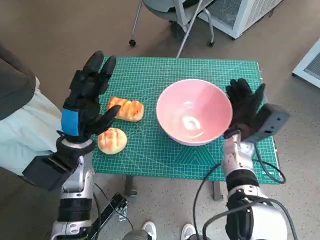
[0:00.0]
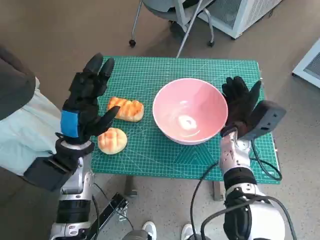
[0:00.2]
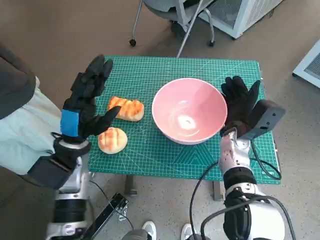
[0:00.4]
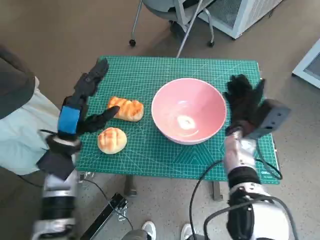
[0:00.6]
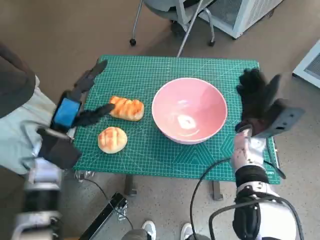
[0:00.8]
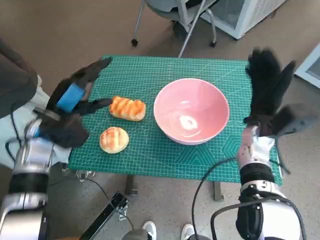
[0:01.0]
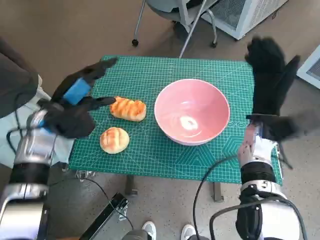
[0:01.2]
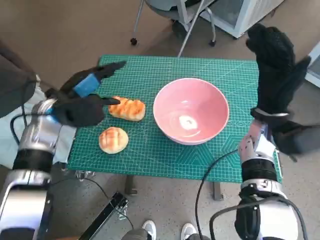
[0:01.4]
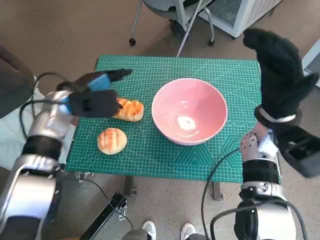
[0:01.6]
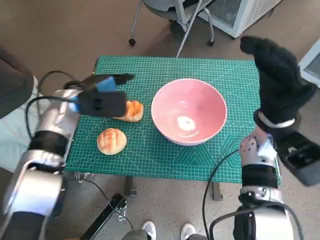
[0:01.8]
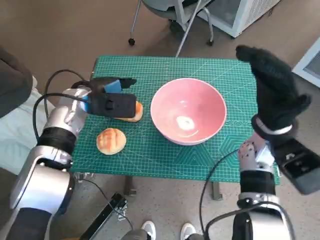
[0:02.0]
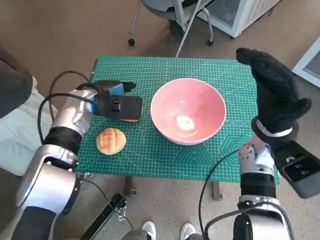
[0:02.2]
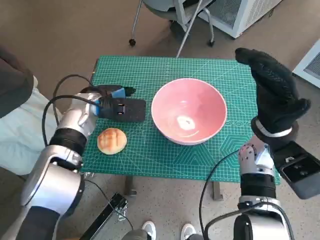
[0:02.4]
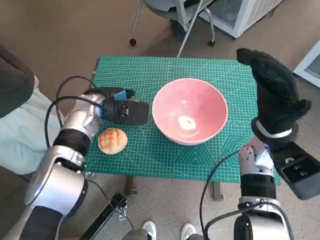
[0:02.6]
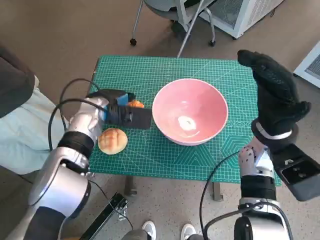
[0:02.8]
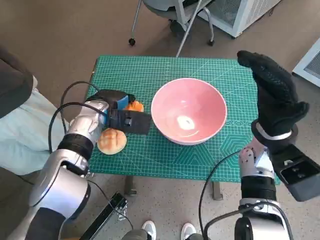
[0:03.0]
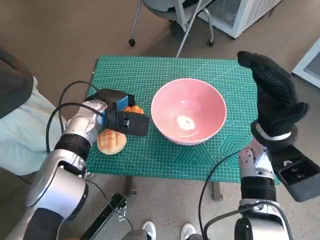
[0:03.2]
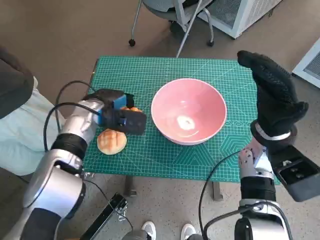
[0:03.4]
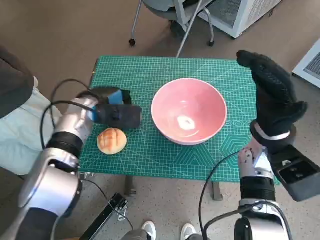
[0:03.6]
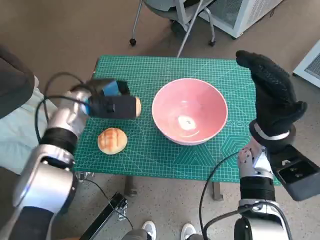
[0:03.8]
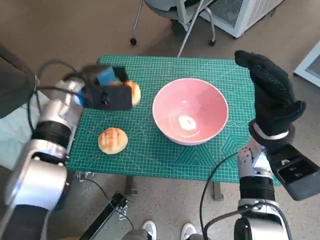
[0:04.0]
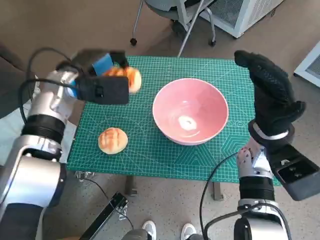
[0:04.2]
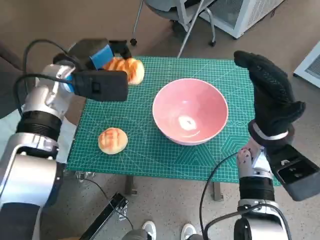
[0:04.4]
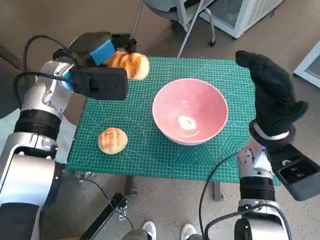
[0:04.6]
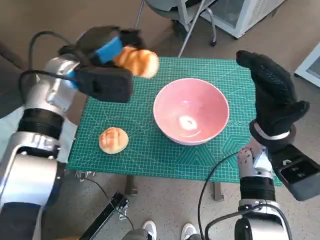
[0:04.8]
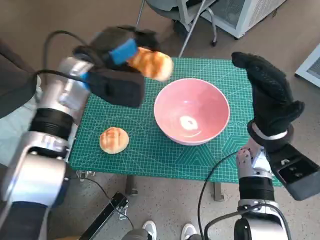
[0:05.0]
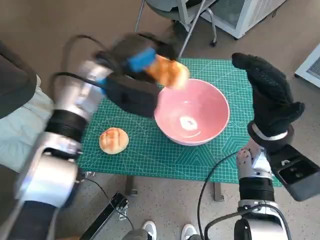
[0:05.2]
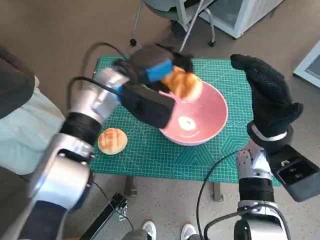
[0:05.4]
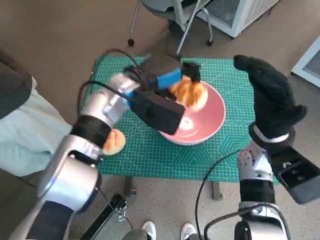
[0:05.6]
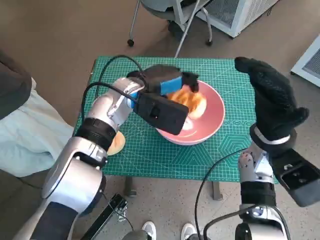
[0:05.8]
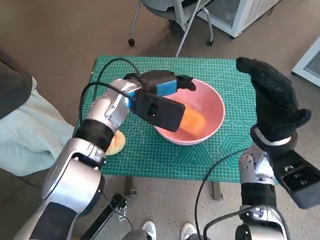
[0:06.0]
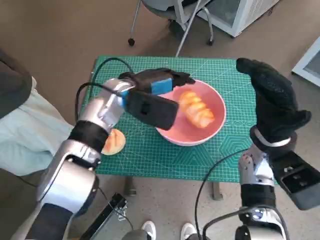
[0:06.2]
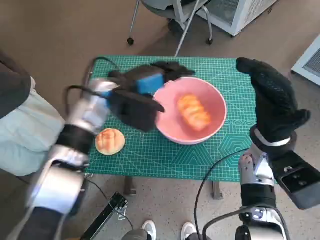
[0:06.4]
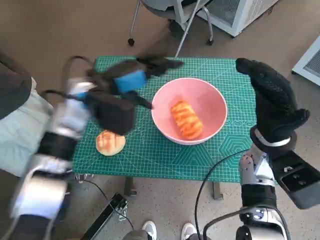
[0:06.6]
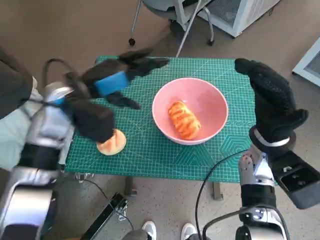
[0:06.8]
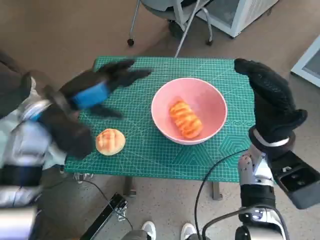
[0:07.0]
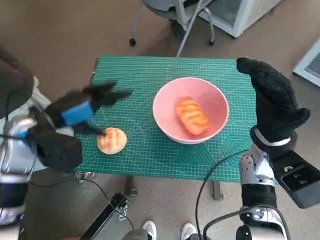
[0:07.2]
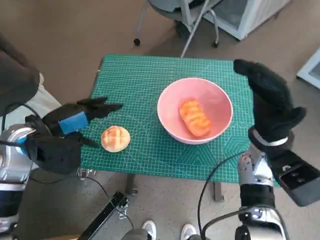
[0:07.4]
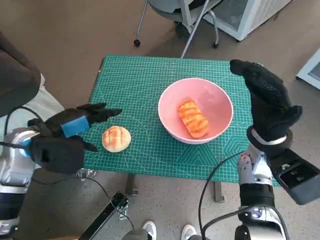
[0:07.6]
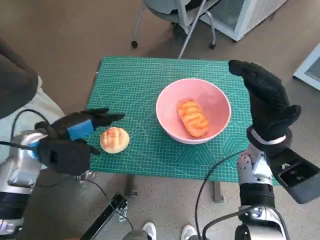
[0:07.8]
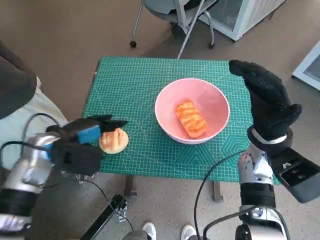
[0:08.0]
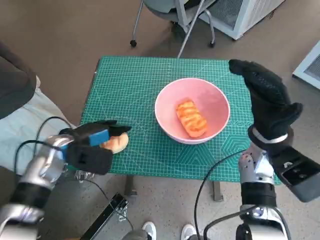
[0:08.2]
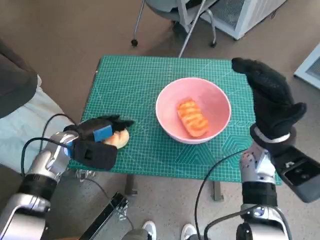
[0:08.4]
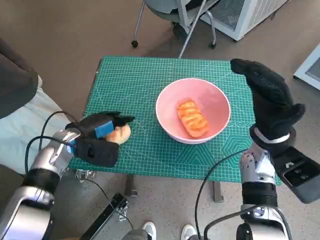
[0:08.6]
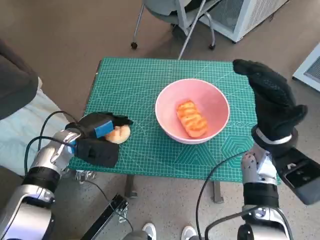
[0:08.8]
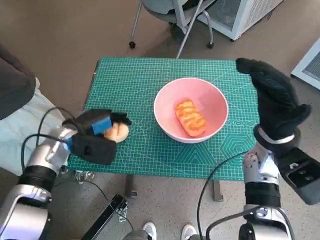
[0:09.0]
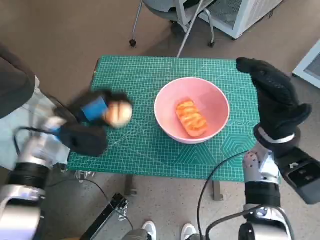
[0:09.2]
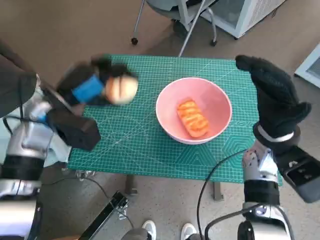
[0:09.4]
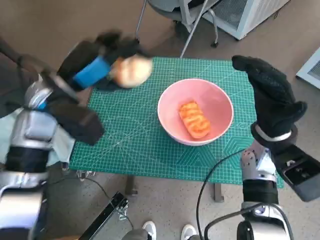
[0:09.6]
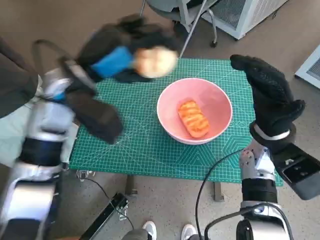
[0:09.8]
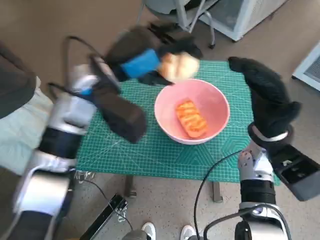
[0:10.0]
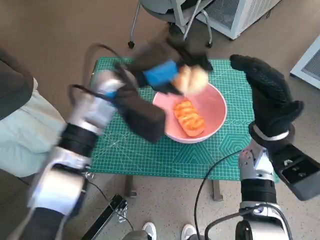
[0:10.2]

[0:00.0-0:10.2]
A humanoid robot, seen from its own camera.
Task of the whole recording: Push the bowl to the center of the table and put the bread into the bowl.
Step, 0:00.8 to 0:03.2: Grasp the long bread with left hand.
Step, 0:03.6 to 0:05.8: Place the long bread in pink bowl with left hand.
Step, 0:06.0 to 0:08.8: Grasp the round bread with left hand.
0:00.0 to 0:01.4: The left hand heads forward, covering approximately 5 cm; the right hand travels upward by roughly 10 cm.
0:01.4 to 0:03.0: The left hand is displaced to the right by about 5 cm.
0:03.0 to 0:04.4: The left hand is displaced upward by approximately 10 cm.
0:04.4 to 0:05.8: The left hand is displaced to the right by roughly 10 cm.
0:05.8 to 0:07.2: The left hand goes about 20 cm to the left and backward.
0:07.2 to 0:08.8: The left hand moves downward, roughly 10 cm.
0:08.8 to 0:10.2: The left hand goes approximately 20 cm upward and to the right.

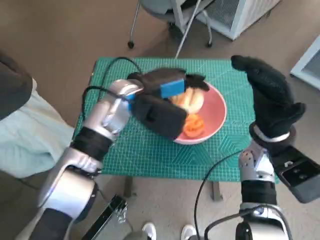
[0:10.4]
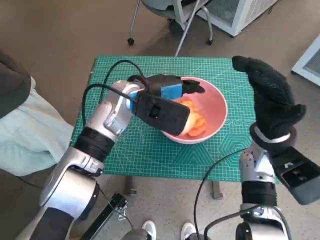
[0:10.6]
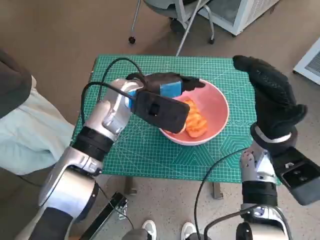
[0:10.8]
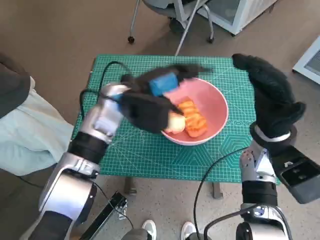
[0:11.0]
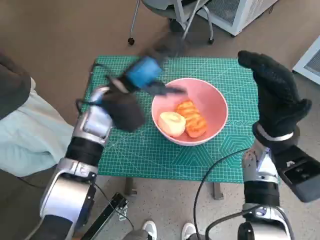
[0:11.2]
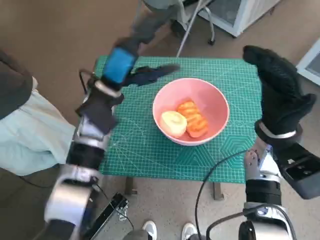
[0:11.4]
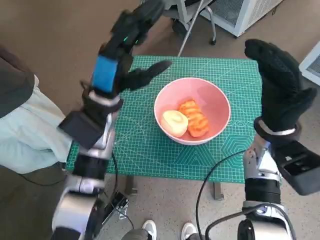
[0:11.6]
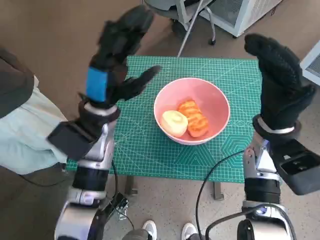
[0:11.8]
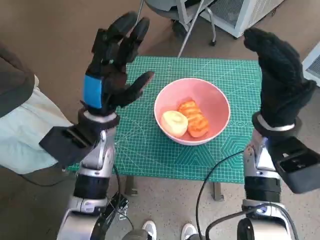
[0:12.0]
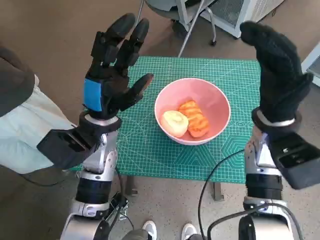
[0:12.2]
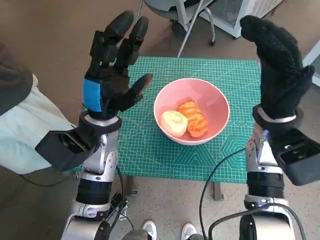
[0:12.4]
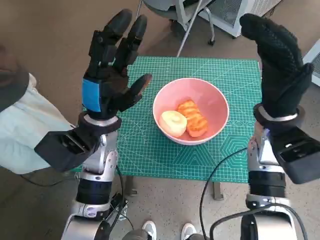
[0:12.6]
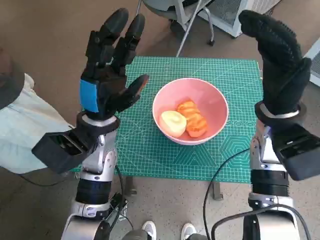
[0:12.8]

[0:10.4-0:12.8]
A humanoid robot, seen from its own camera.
Task of the whole recording: Push the bowl to the center of the table and put the bread into the bowl.
0:10.4 to 0:11.6: The left hand shifts by some 5 cm.

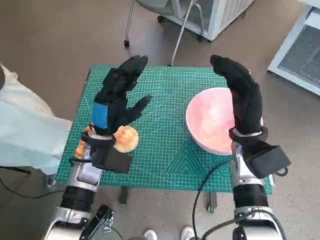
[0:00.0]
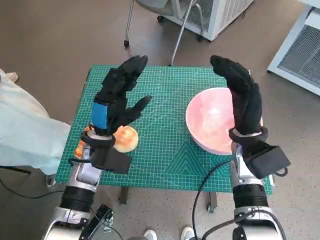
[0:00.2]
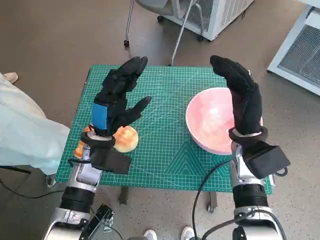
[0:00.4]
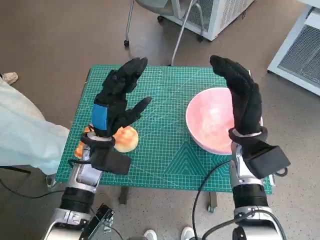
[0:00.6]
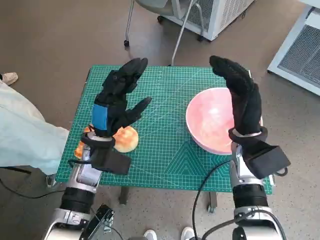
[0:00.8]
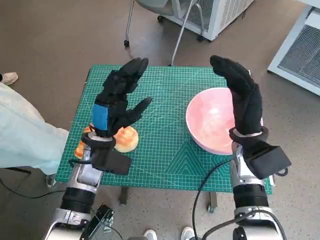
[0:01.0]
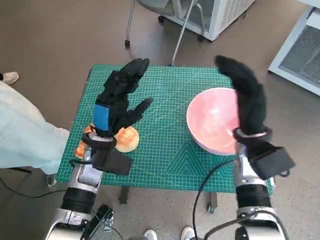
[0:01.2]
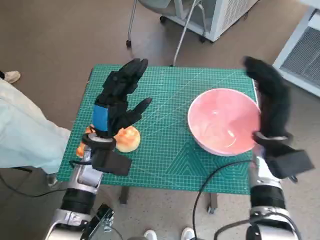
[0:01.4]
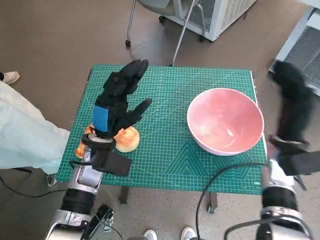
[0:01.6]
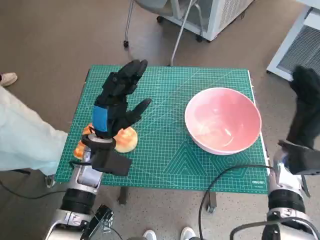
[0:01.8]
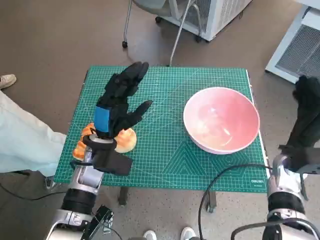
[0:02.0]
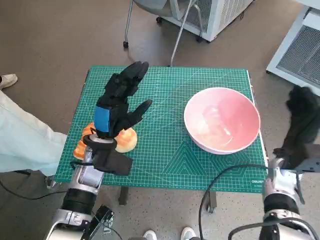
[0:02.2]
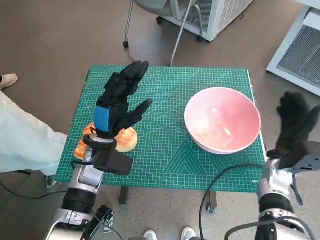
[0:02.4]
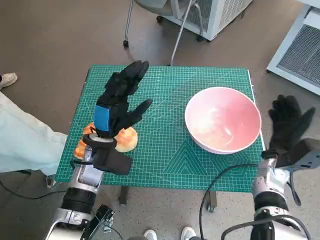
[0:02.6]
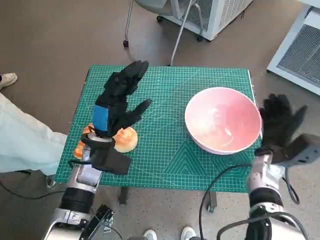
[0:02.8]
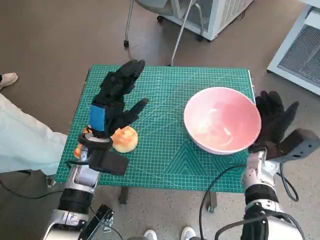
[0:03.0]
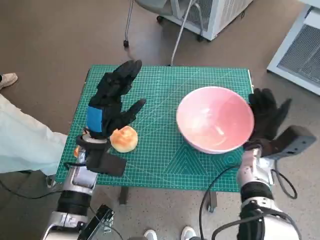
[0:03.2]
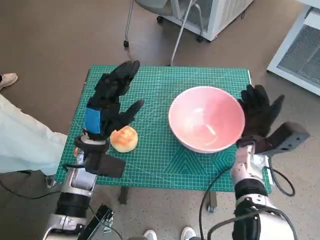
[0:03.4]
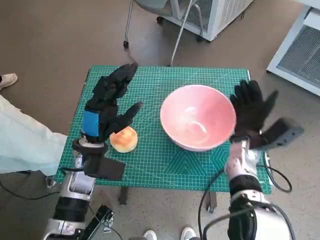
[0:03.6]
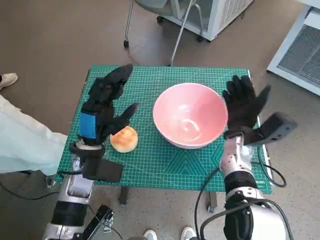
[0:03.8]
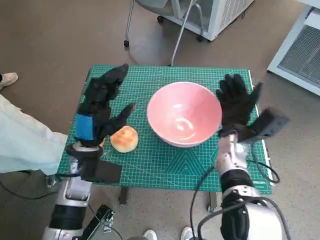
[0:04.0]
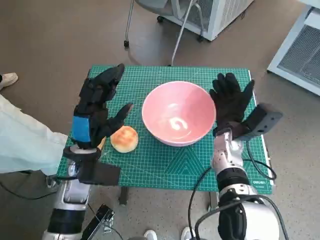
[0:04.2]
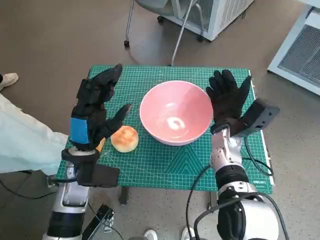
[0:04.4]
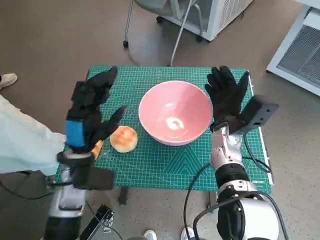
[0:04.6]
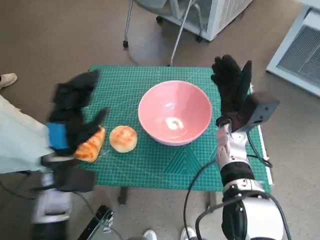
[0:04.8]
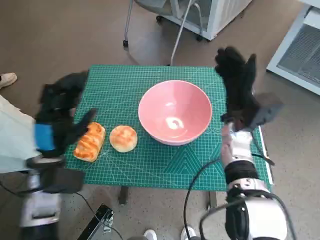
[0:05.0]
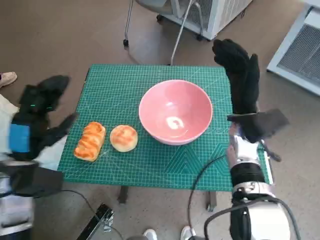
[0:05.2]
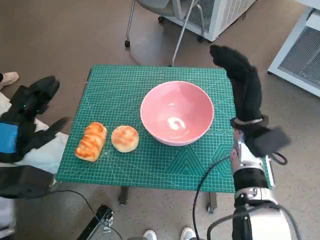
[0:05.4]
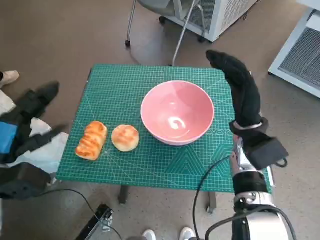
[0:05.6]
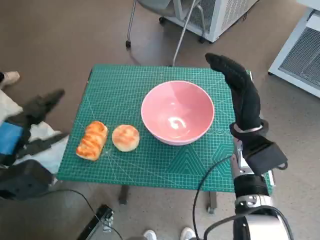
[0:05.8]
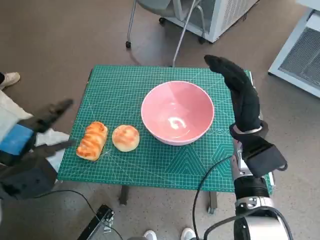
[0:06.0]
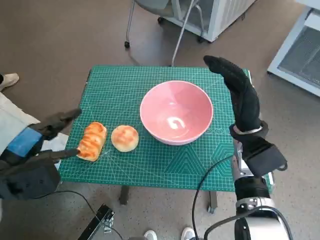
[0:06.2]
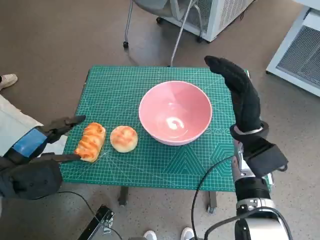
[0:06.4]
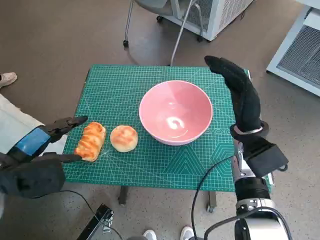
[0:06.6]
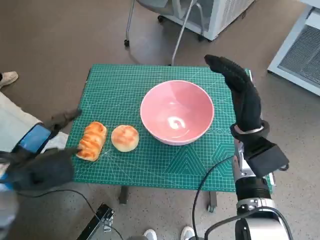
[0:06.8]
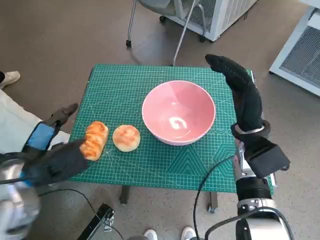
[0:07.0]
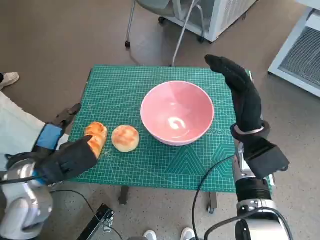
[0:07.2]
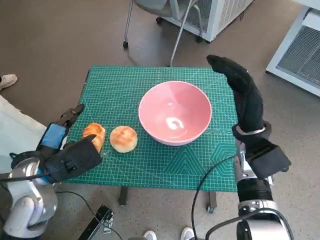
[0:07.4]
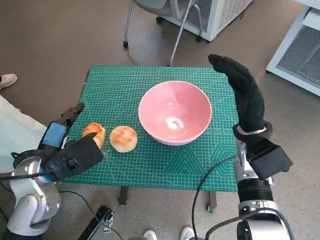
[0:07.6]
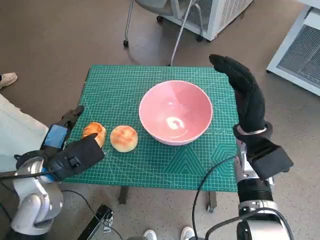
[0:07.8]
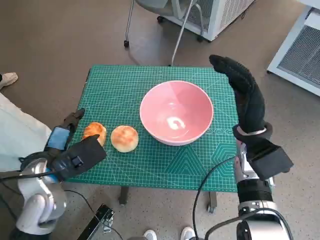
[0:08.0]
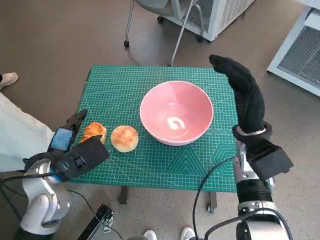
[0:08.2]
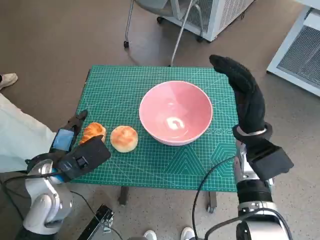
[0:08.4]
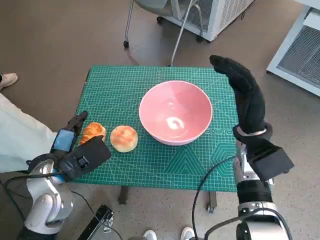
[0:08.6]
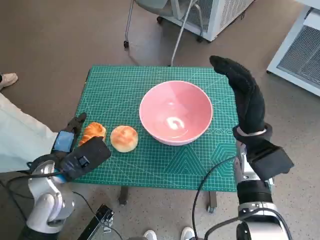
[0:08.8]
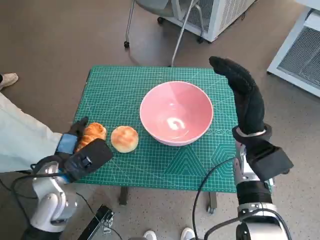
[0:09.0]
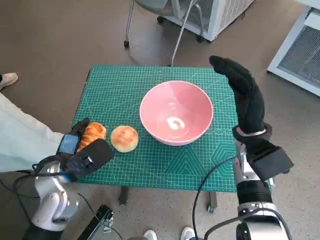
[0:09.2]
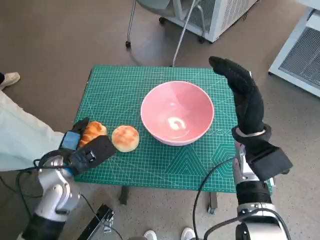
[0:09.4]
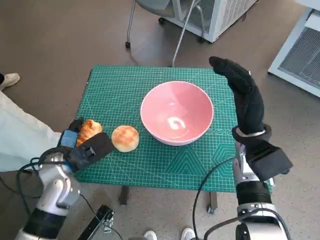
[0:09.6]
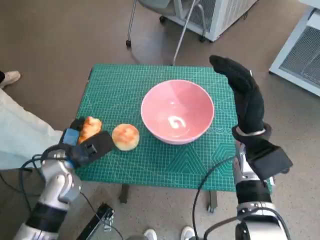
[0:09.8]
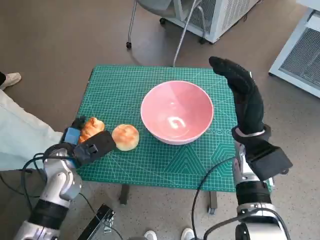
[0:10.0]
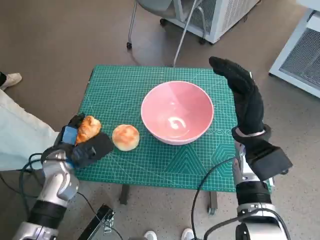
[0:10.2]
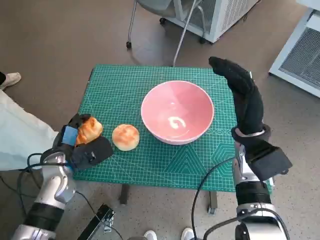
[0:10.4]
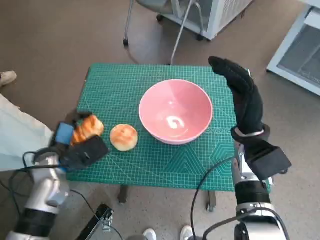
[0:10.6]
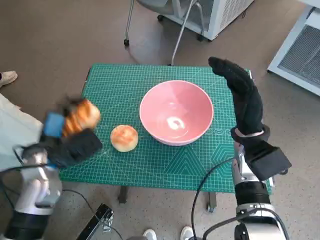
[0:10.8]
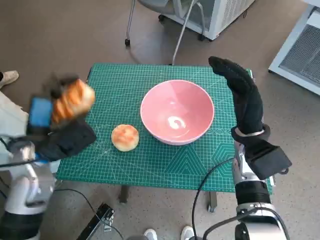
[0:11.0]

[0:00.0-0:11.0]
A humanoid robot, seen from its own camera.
Task of the whole recording: Push the bowl to the center of the table and put the bread into the bowl.
Step, 0:00.0 to 0:04.8: Move the pink bowl to the center of table with right hand.
Step, 0:05.2 to 0:10.0: Grasp the long bread with left hand.
0:01.6 to 0:03.2: The right hand shifts roughly 5 cm downward.
0:03.2 to 0:04.8: The right hand heads to the left and upward, covering roughly 10 cm; the left hand moves roughly 5 cm.
0:04.8 to 0:06.2: The left hand shifts some 10 cm to the left and upward.
0:06.2 to 0:07.8: The left hand moves to the right, roughly 5 cm.
0:07.8 to 0:09.4: There are only small adjustments of the hands.
0:09.4 to 0:11.0: The left hand shifts by approximately 5 cm.
